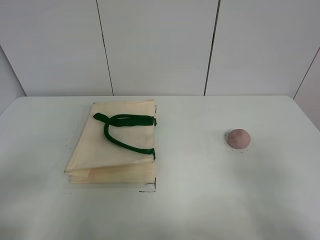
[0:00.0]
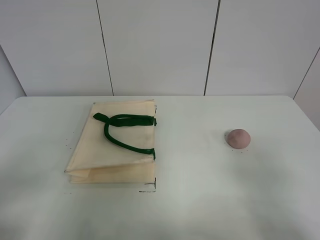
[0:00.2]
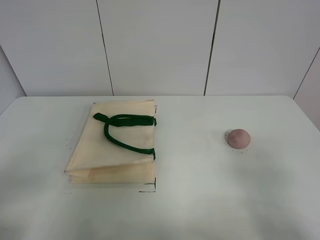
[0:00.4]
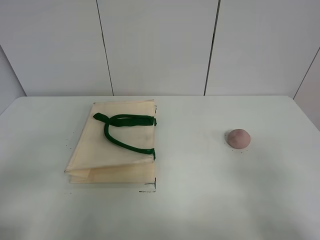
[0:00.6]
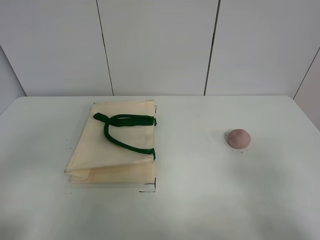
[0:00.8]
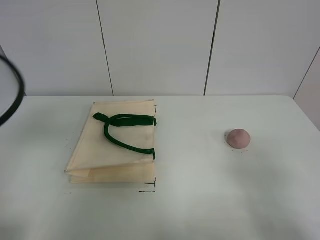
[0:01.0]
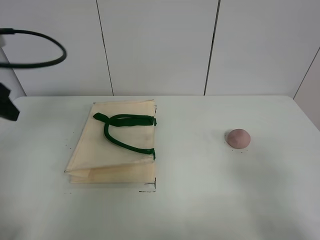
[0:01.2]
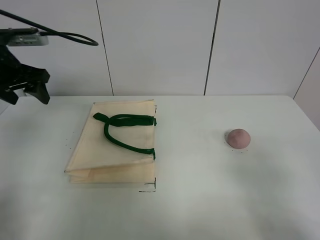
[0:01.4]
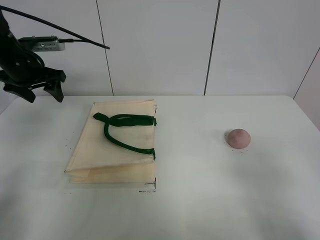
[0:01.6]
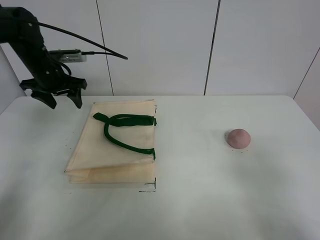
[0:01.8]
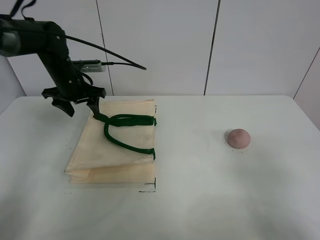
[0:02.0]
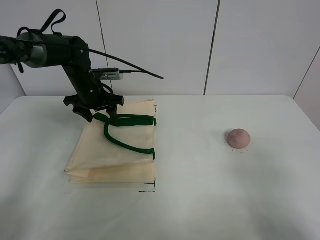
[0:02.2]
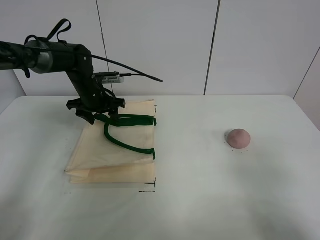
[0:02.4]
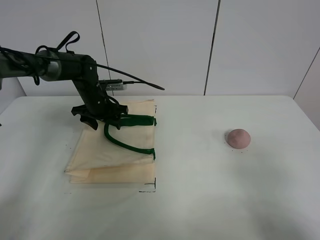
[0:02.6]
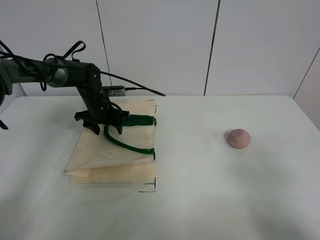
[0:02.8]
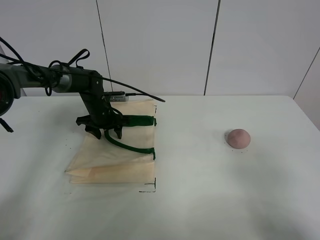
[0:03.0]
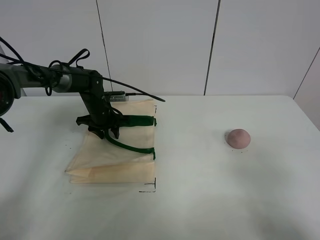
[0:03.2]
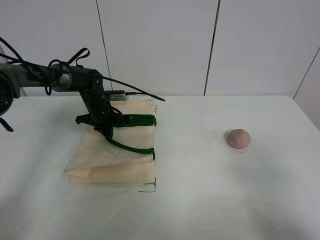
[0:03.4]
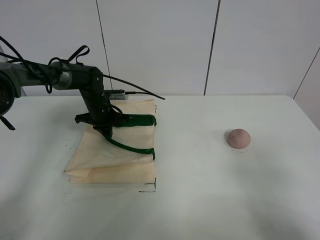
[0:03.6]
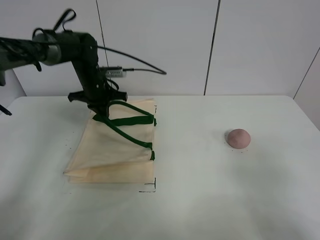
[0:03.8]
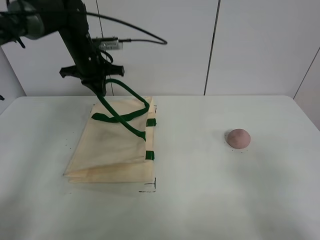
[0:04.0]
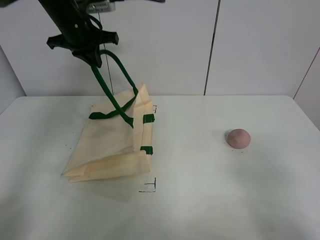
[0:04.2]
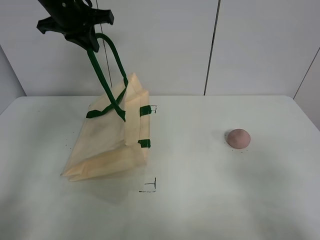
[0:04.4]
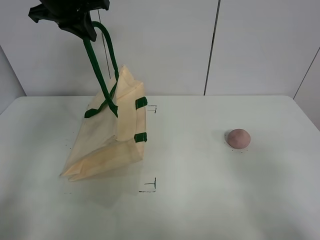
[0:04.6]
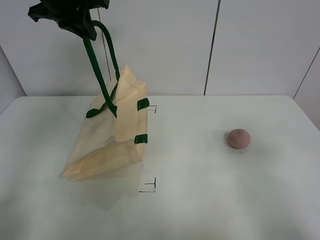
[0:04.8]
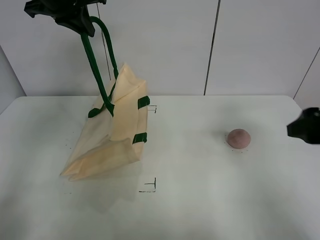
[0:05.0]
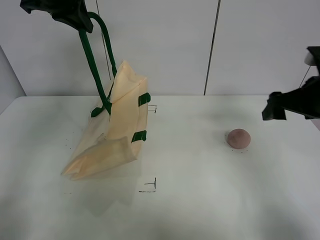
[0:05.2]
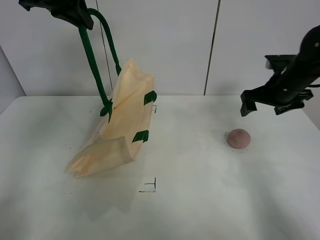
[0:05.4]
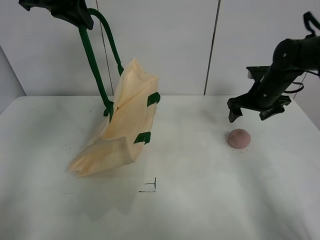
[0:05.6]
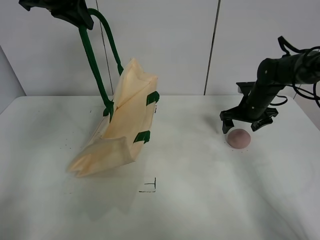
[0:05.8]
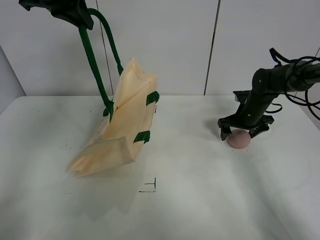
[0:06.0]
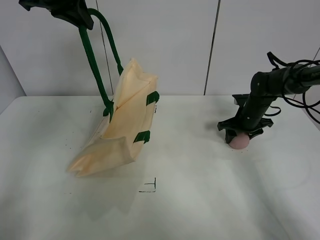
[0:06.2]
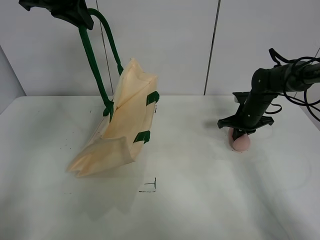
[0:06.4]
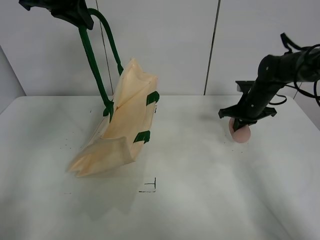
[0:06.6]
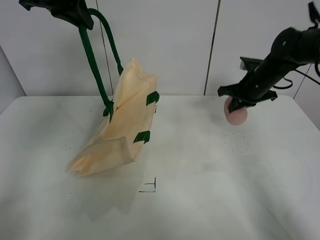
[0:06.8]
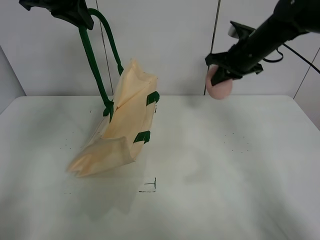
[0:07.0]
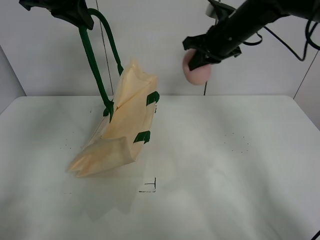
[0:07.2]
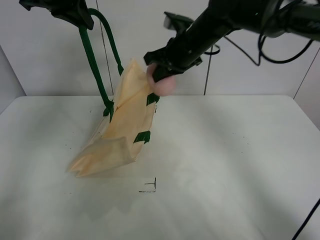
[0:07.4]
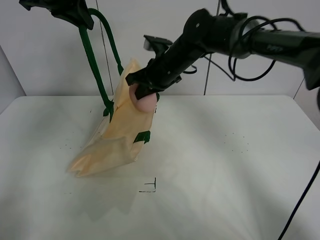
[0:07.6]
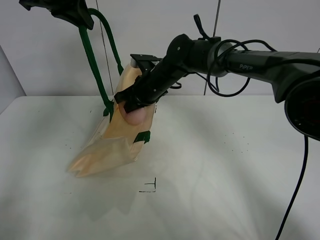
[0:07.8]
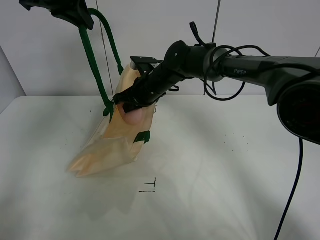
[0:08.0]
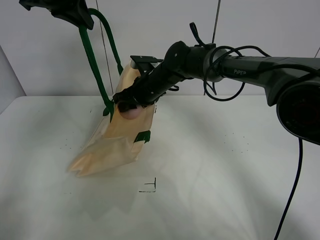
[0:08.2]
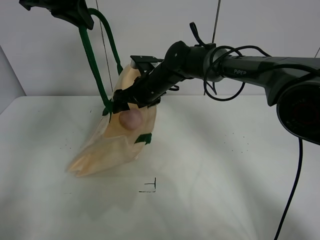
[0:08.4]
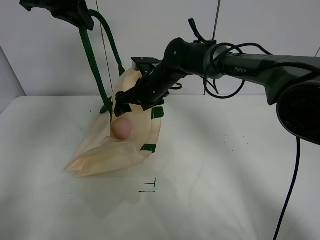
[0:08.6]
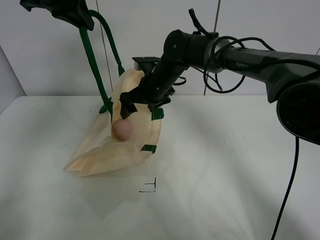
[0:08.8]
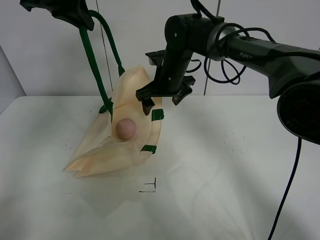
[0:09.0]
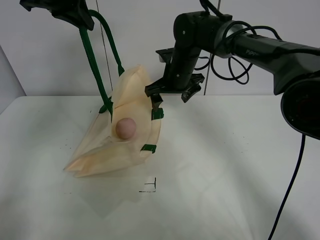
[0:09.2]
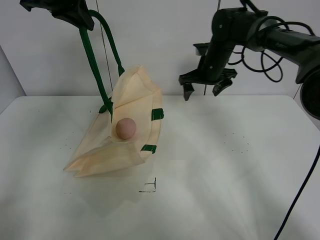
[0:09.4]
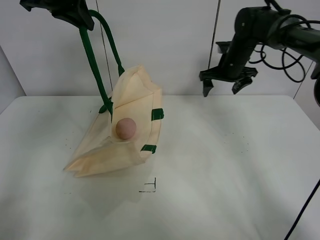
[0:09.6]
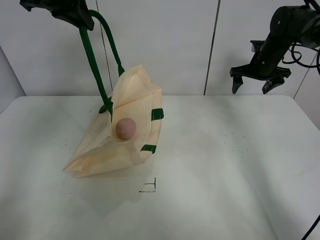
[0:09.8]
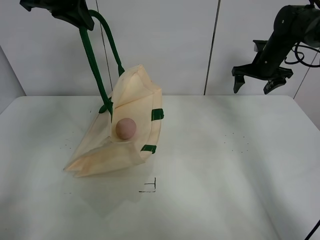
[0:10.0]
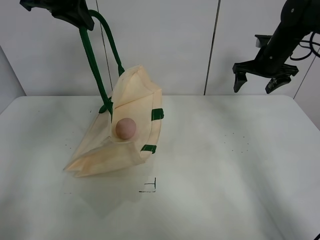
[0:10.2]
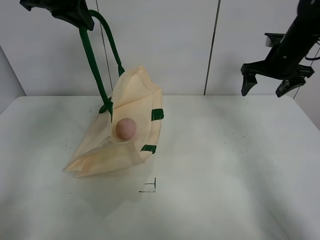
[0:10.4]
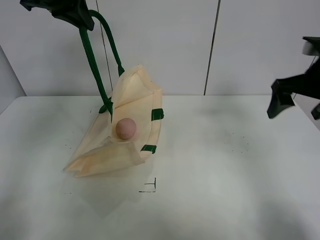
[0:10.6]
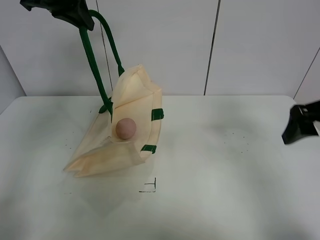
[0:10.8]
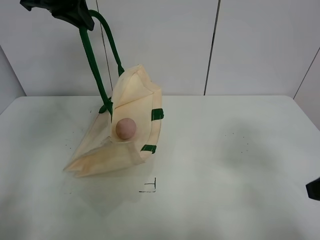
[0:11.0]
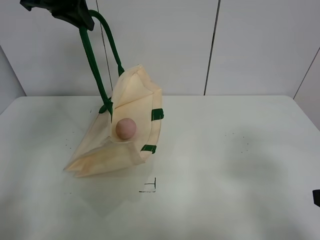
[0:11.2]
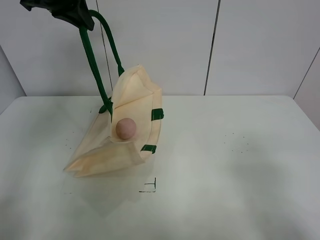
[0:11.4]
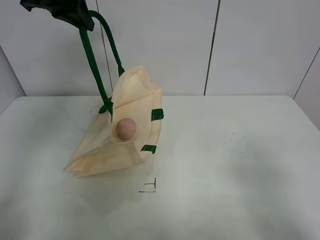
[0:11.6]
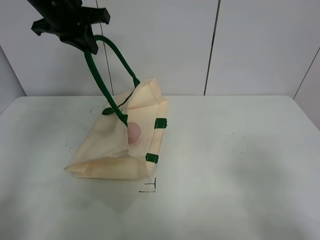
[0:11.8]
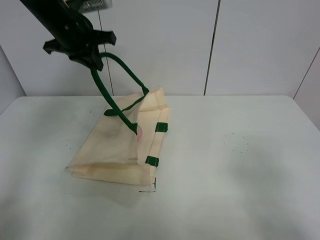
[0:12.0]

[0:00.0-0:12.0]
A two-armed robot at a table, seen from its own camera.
Task of the whole recording: open the white linen bag and put the peach in the bag.
Step, 0:00.0 to 0:04.8: Lift the handbag with left gripper.
Step, 0:05.0 to 0:06.4: Grasp the peach with right gripper.
Step, 0:06.6 to 0:08.6: Place the peach in the handbag with right gripper.
0:01.6 to 0:03.0: The left gripper heads downward, to the right and forward, covering roughly 25 cm.
0:03.0 to 0:04.4: The left gripper shifts some 25 cm upward, and closes up.
0:04.4 to 0:06.0: The right gripper moves forward, approximately 40 cm, while the left gripper shifts roughly 10 cm upward and backward.
0:06.0 to 0:07.6: The right gripper shifts about 25 cm to the left and upward, and closes its fingers.
0:07.6 to 0:09.0: The right gripper heads downward, covering approximately 5 cm, and opens.
0:09.0 to 0:10.4: The right gripper shifts roughly 25 cm to the right.
0:10.4 to 0:12.0: The right gripper heads backward, covering about 40 cm; the left gripper shifts roughly 5 cm downward.

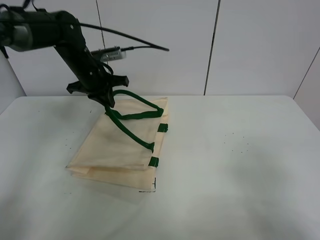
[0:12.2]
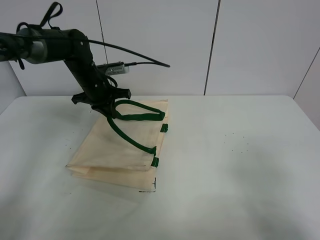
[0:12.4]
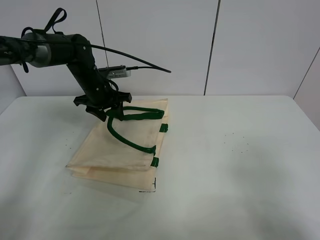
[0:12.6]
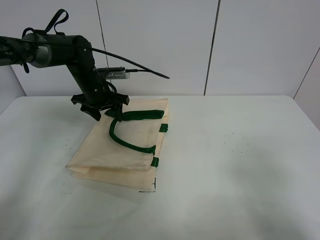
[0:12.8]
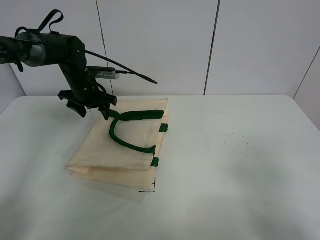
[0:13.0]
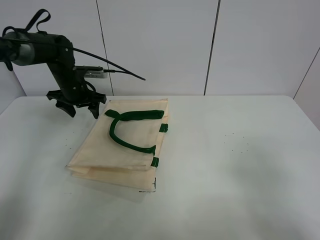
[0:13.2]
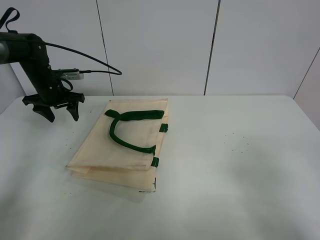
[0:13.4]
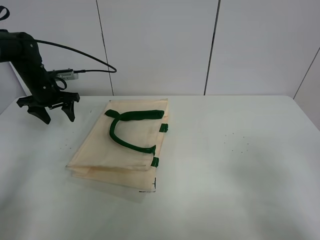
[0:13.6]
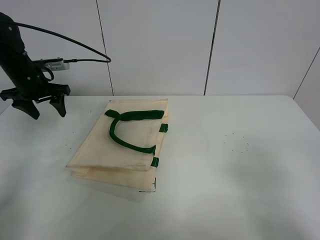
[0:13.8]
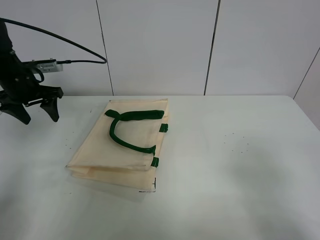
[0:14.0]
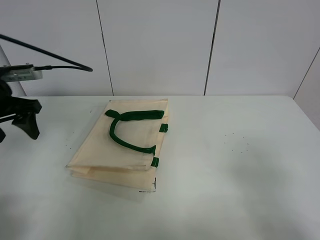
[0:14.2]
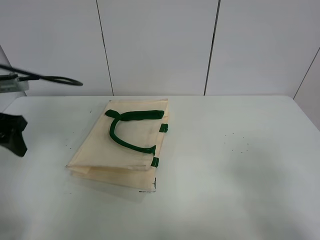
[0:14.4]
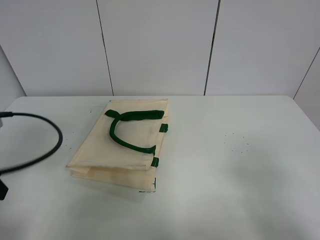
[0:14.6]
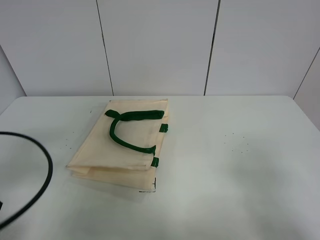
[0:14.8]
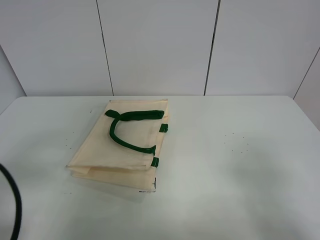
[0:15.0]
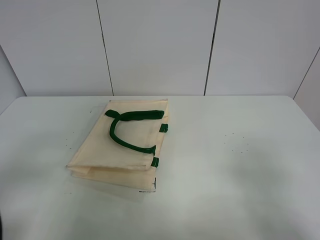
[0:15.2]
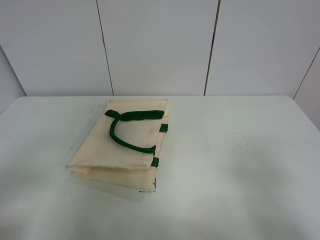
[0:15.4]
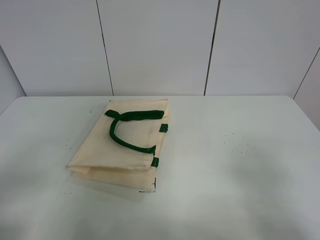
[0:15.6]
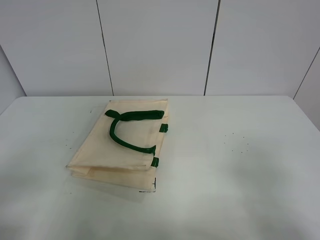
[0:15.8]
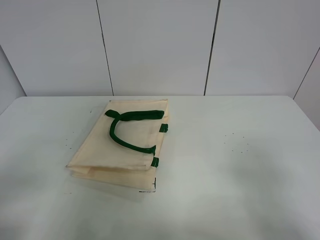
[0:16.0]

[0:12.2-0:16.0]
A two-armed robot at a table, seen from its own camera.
Task of the whole recording: open the white linen bag and put the peach in the bag.
0:12.2 to 0:13.4: The left gripper goes roughly 15 cm to the left and downward, and opens.
0:13.4 to 0:14.8: The left gripper heads backward, covering approximately 35 cm.
0:14.8 to 0:16.0: The left gripper is displaced backward by roughly 10 cm.
